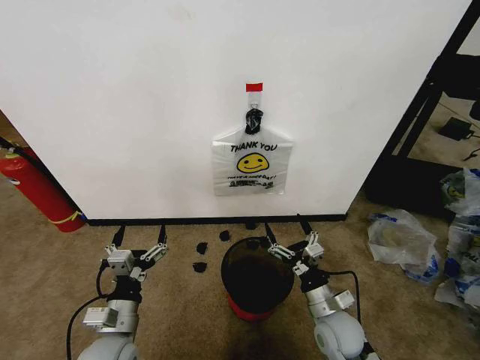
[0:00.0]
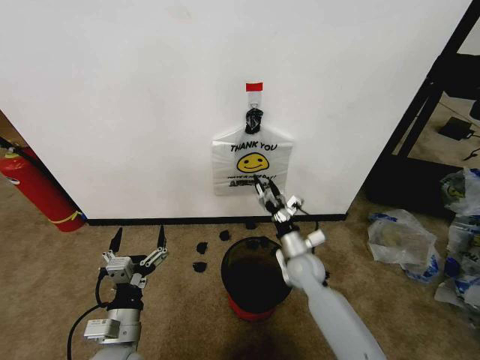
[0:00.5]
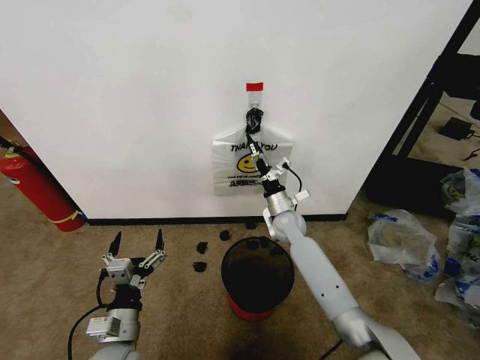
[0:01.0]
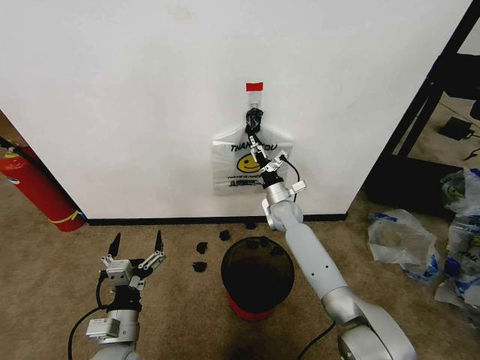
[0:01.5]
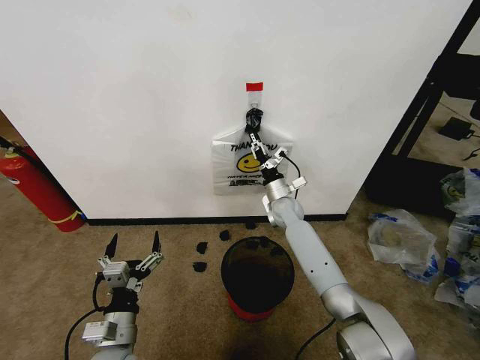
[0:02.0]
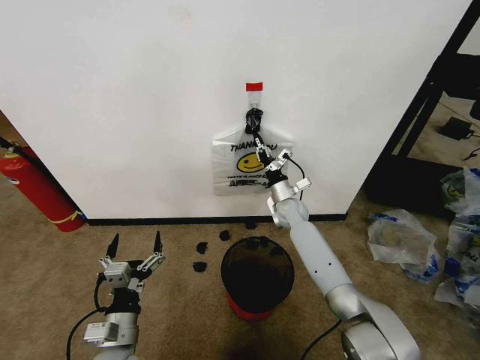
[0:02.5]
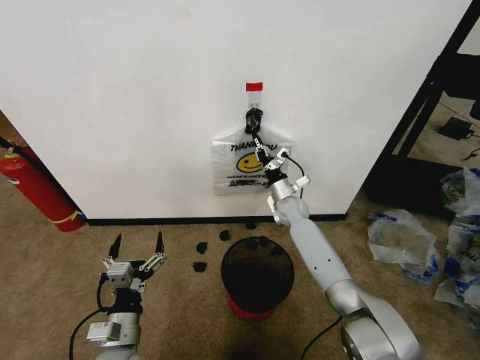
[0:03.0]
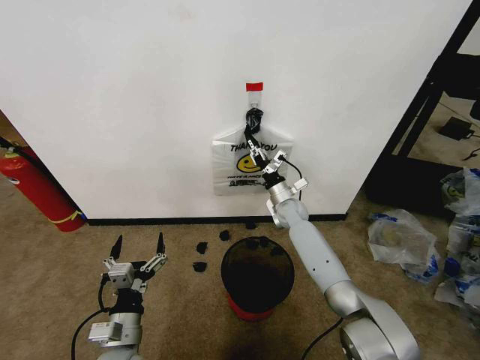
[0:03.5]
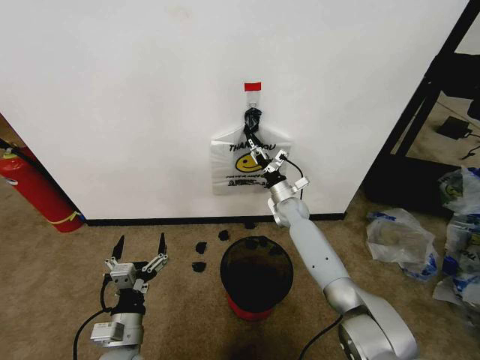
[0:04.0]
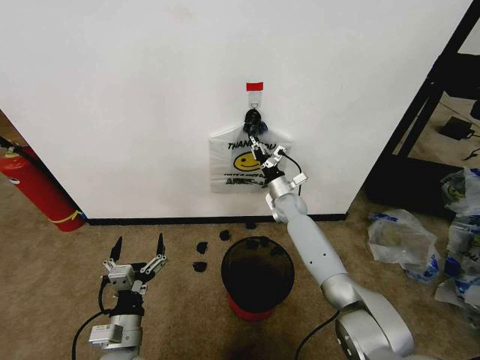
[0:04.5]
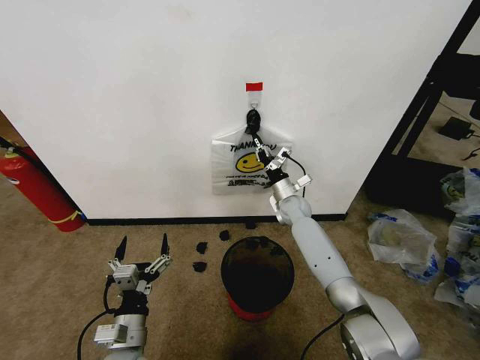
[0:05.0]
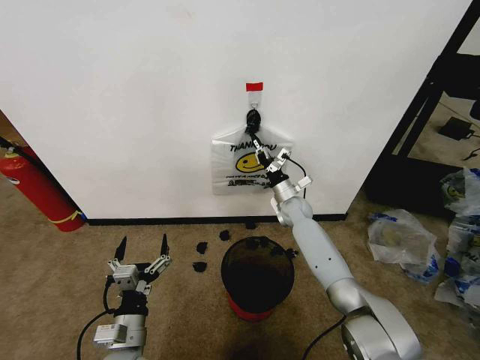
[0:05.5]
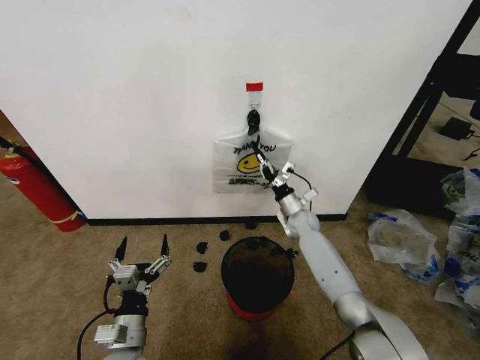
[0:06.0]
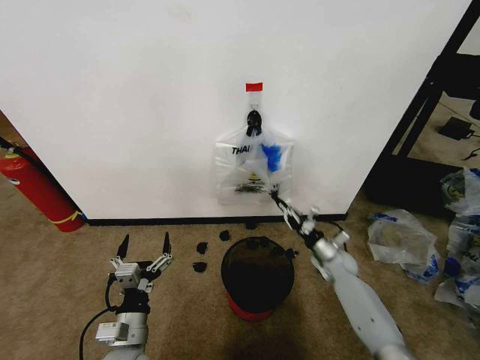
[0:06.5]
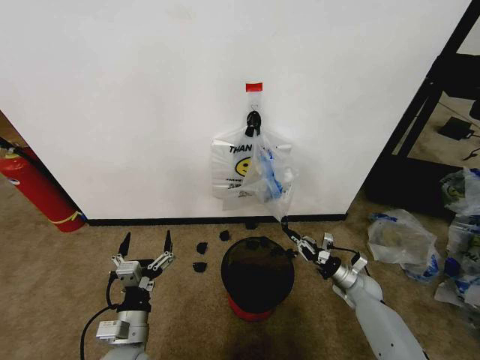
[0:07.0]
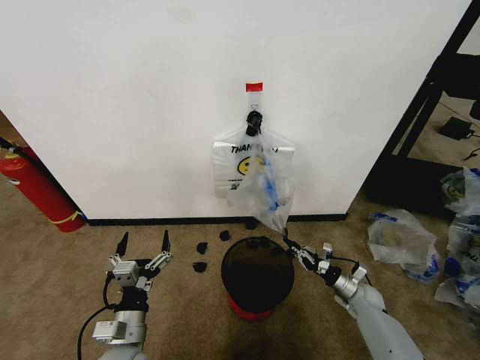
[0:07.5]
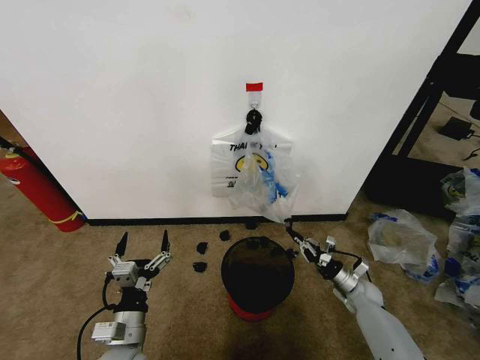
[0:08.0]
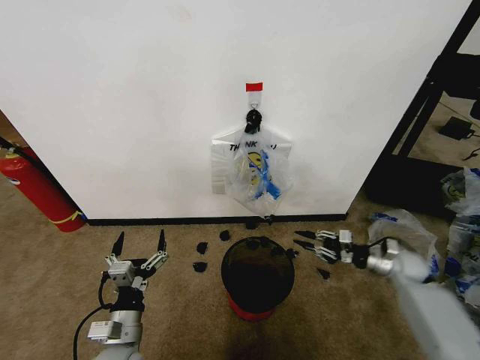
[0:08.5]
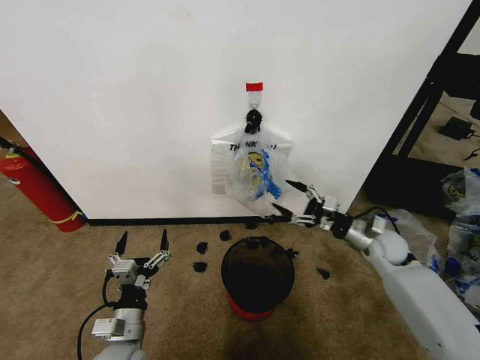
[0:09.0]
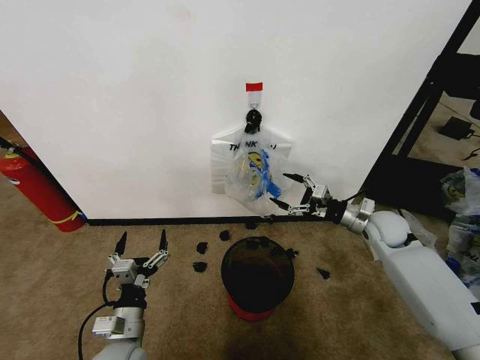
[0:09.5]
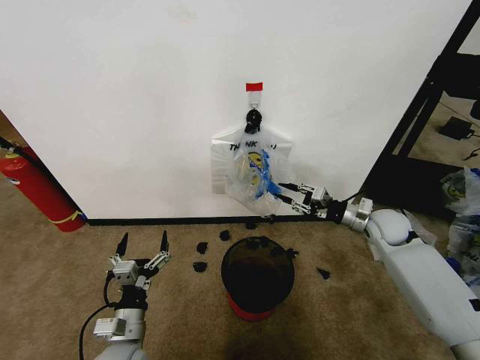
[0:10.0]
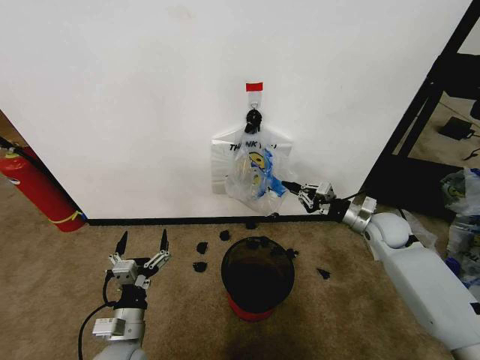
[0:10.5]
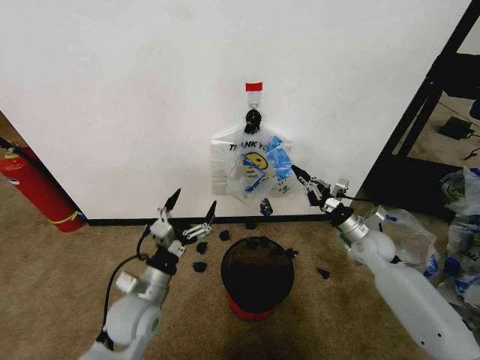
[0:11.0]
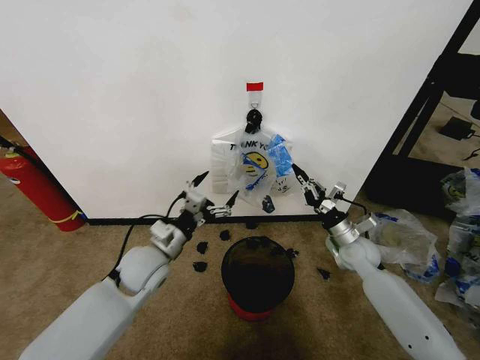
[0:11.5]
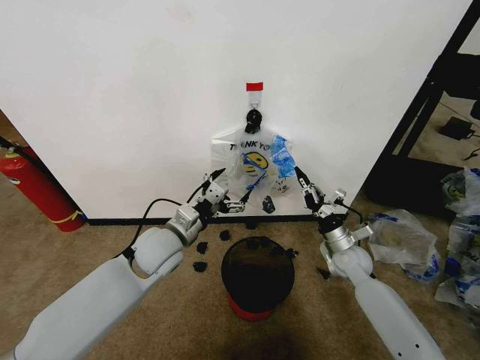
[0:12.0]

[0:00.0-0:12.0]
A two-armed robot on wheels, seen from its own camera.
Task of the whole recording: Pick up the garbage bag from the wall and place it over the trash bin.
0:02.0 to 0:04.0: There are only small adjustments of the grippers.
0:04.0 to 0:06.0: The right gripper changes place by roughly 5 cm, and closes up.
0:06.0 to 0:08.0: The right gripper travels to the right, backward and downward by approximately 30 cm.
0:08.0 to 0:10.0: The right gripper moves upward, roughly 25 cm, and opens, then closes again.
0:10.0 to 0:12.0: The right gripper is displaced downward and to the left by some 10 cm. Meanwhile the left gripper shifts roughly 20 cm forward and upward.

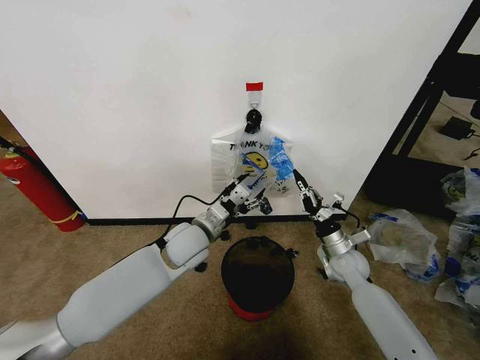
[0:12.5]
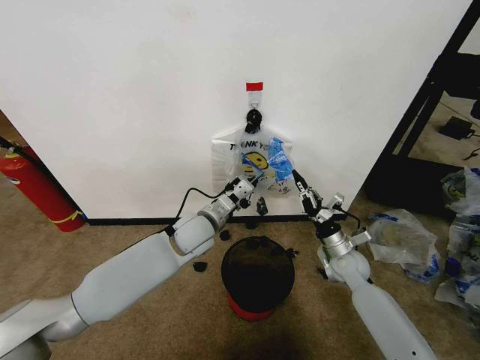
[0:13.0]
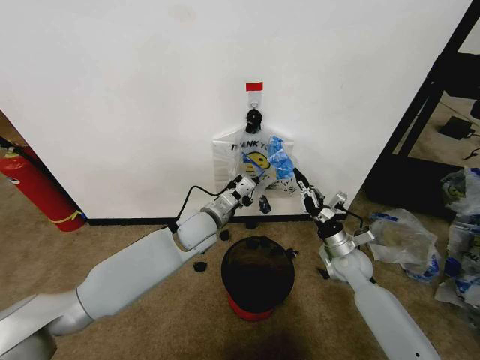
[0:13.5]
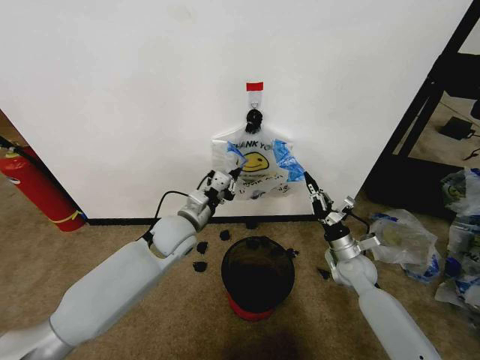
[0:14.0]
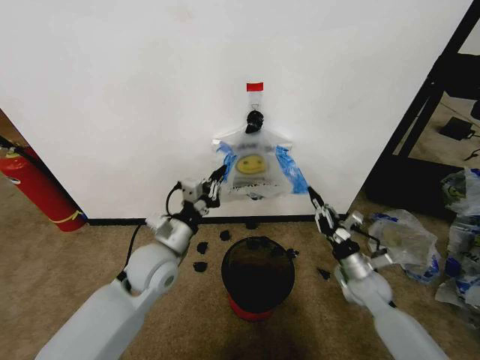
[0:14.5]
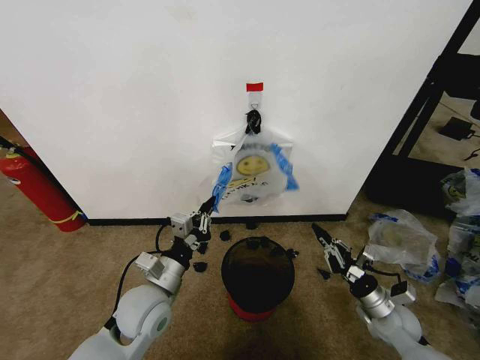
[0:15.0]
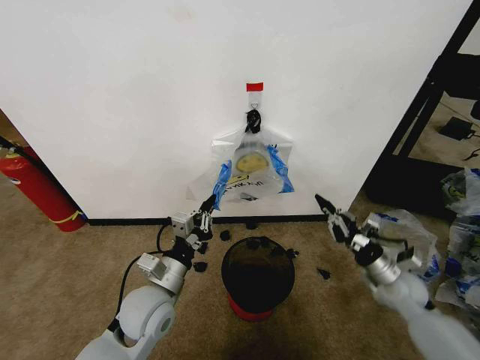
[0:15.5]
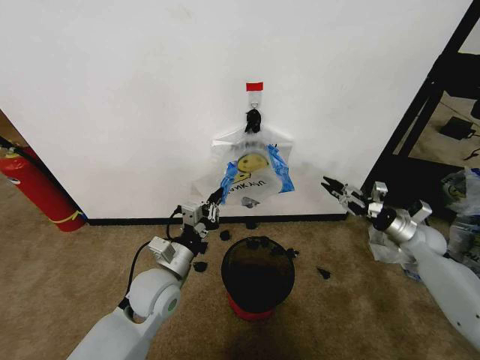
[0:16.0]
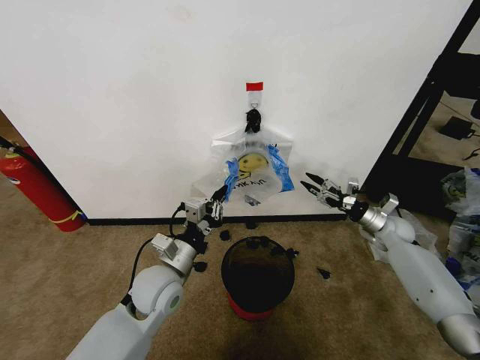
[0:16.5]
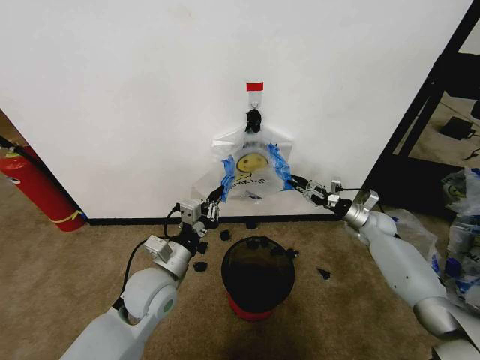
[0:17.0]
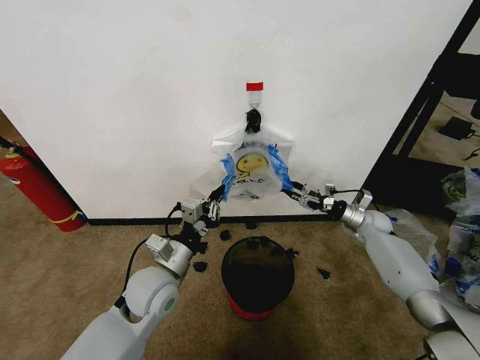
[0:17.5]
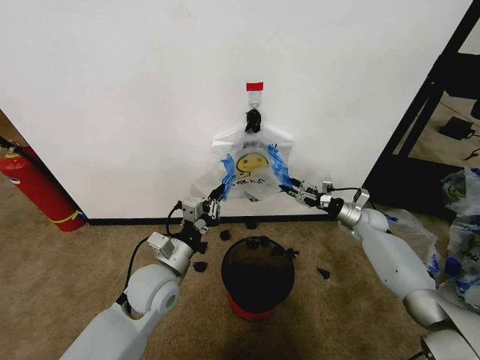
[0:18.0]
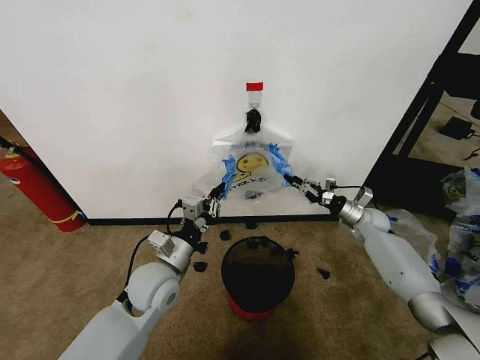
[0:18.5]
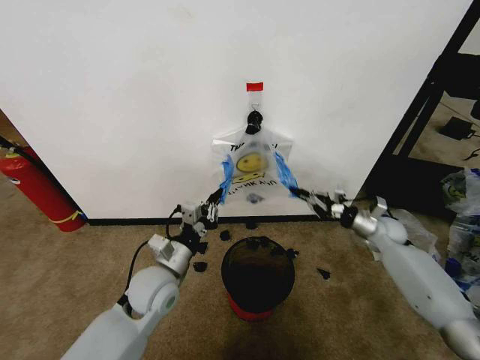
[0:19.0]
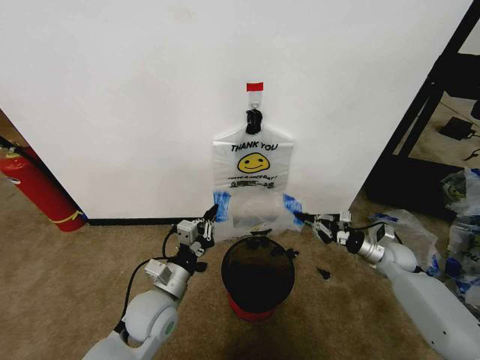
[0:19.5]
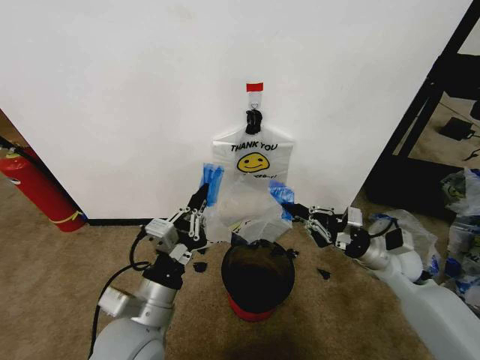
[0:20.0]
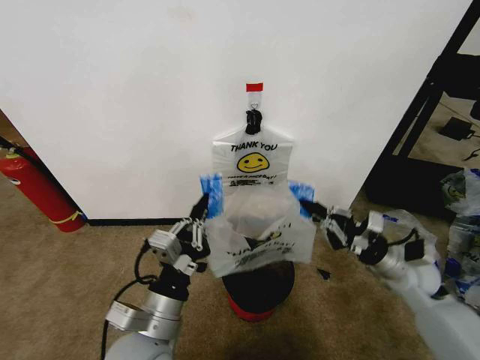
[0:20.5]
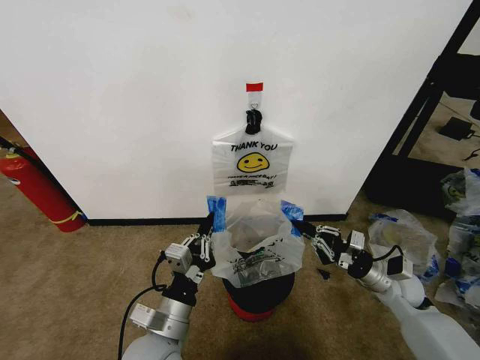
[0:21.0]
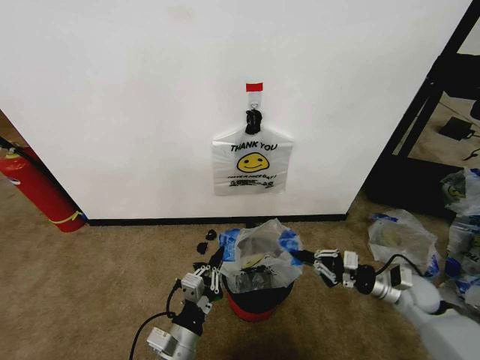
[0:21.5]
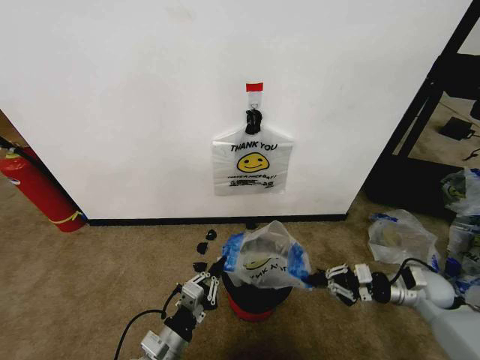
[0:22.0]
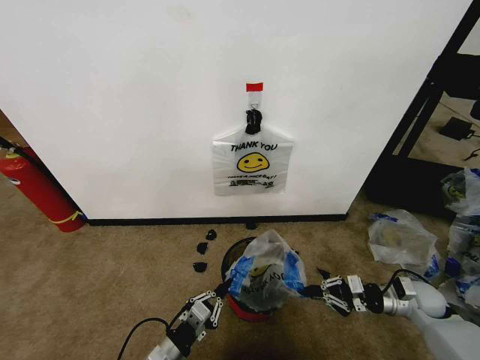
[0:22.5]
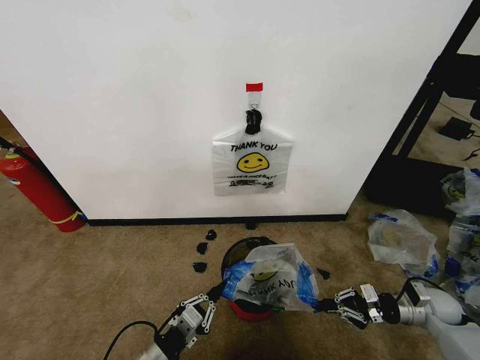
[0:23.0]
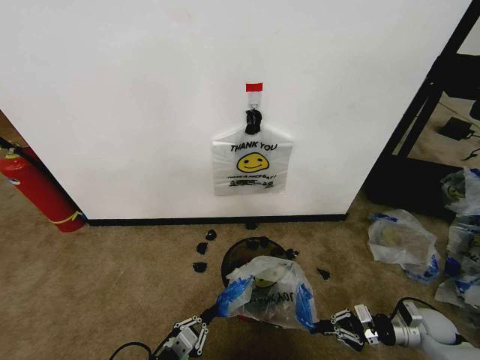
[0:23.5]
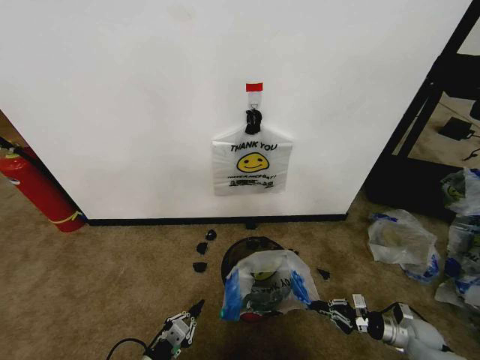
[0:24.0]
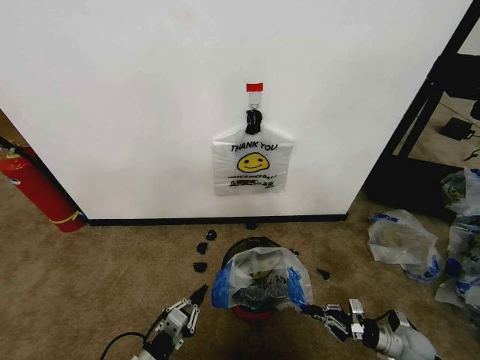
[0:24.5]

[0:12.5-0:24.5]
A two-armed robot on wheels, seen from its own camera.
Task of the whole recording: Pick up the garbage bag from the wall and place it over the trash bin.
0:12.5 to 0:14.5: The left gripper is displaced to the left and backward by roughly 10 cm, and closes its fingers, while the right gripper travels backward by roughly 5 cm.
0:14.5 to 0:16.5: The right gripper travels forward and to the right by approximately 20 cm, and opens up.
0:16.5 to 0:18.5: The right gripper shifts by approximately 5 cm, and closes its fingers.
0:18.5 to 0:20.5: Both grippers travel together backward, about 15 cm.
0:20.5 to 0:22.5: The right gripper moves downward and to the right, approximately 15 cm, while the left gripper is displaced downward by about 15 cm.
0:22.5 to 0:24.5: The right gripper shifts approximately 15 cm downward and backward, while the left gripper changes place by roughly 5 cm.

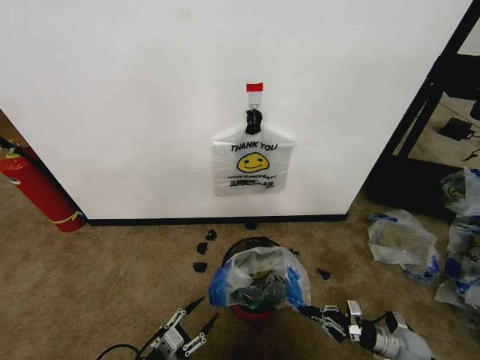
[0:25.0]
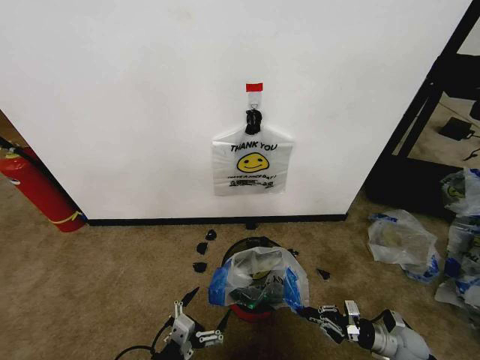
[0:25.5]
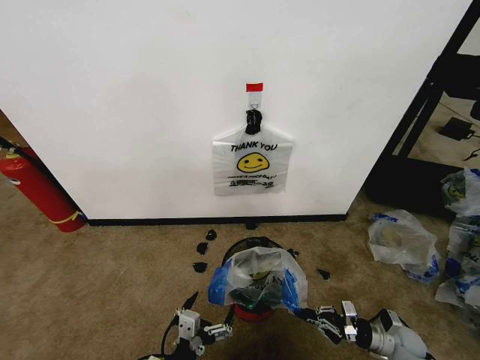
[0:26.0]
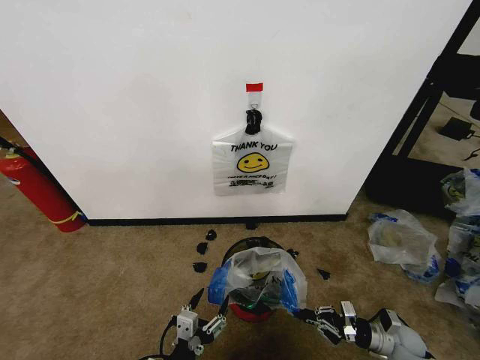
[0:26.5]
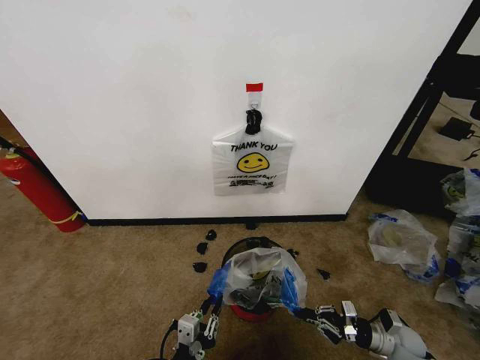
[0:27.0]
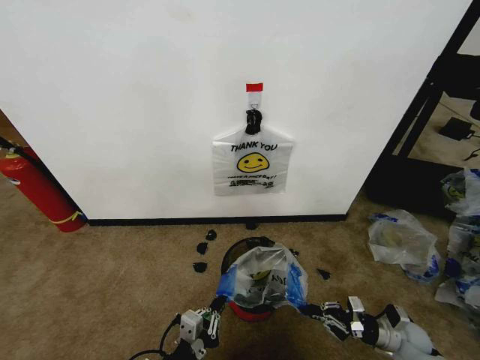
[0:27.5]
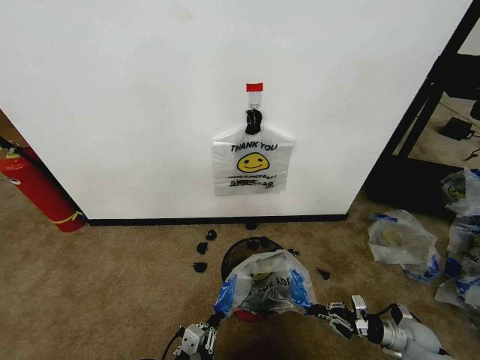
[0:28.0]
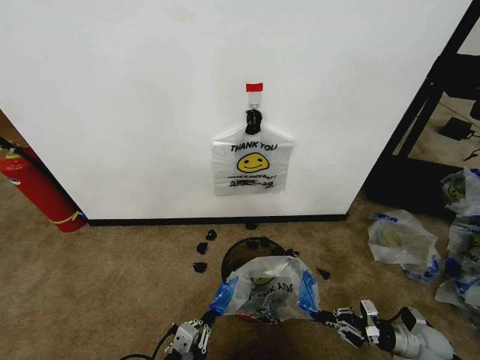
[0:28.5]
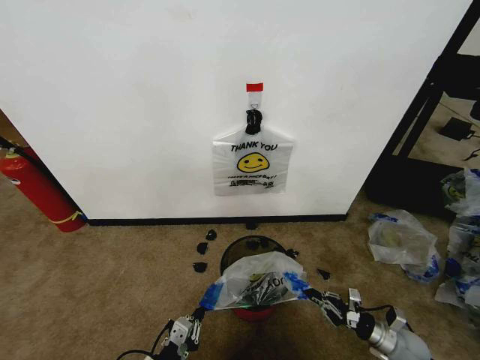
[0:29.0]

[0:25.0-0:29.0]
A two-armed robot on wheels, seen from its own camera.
Task of the whole recording: Pick up the garbage bag from the wall and place it over the trash bin.
0:25.0 to 0:27.0: The left gripper goes some 10 cm to the right, and closes up.
0:27.0 to 0:29.0: The left gripper goes approximately 5 cm to the left.
